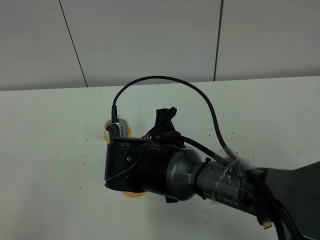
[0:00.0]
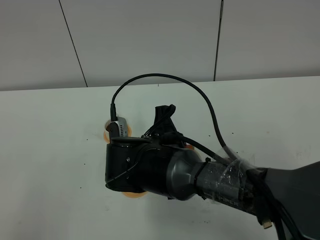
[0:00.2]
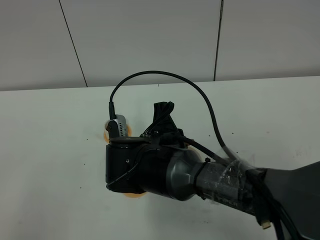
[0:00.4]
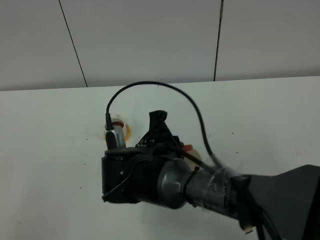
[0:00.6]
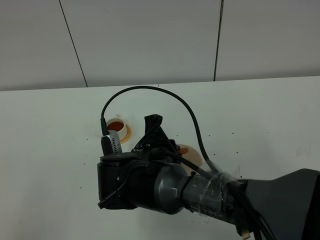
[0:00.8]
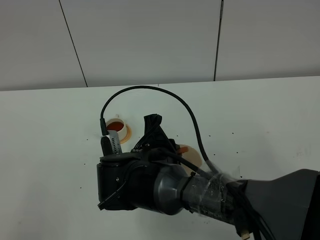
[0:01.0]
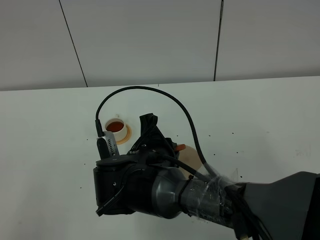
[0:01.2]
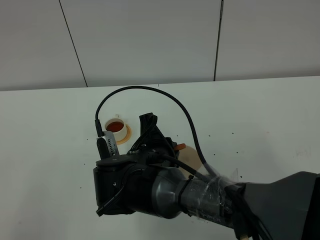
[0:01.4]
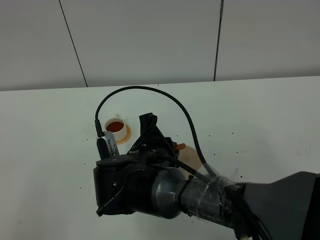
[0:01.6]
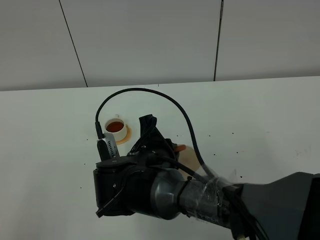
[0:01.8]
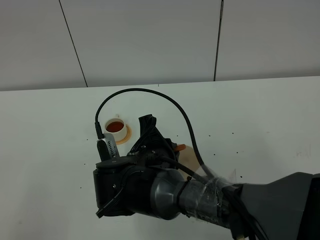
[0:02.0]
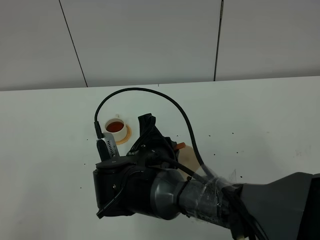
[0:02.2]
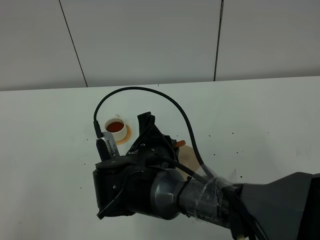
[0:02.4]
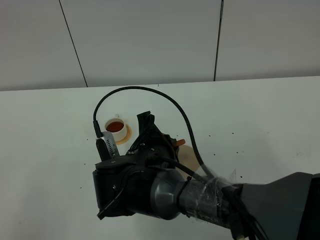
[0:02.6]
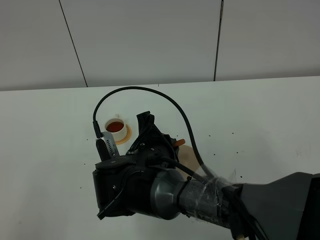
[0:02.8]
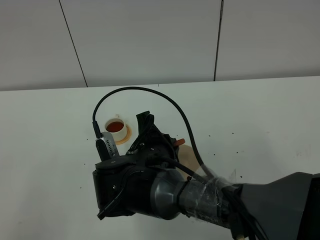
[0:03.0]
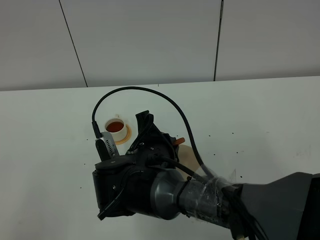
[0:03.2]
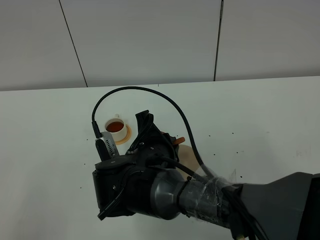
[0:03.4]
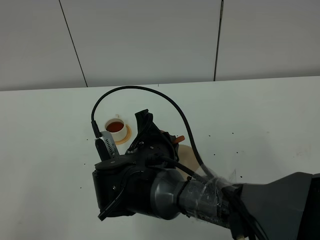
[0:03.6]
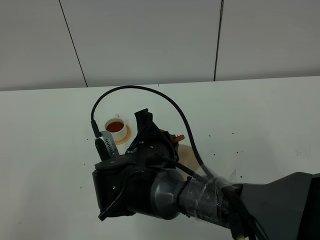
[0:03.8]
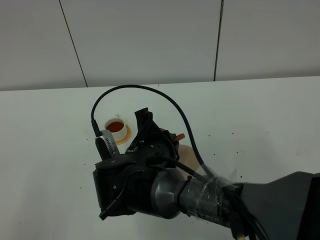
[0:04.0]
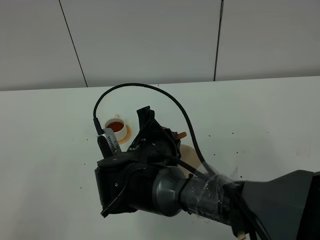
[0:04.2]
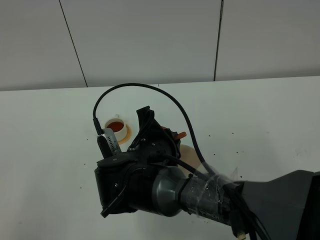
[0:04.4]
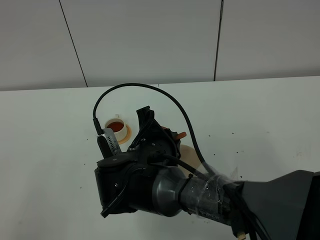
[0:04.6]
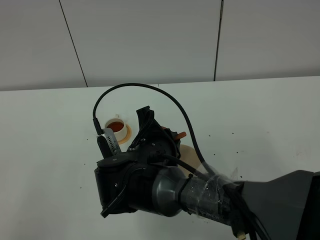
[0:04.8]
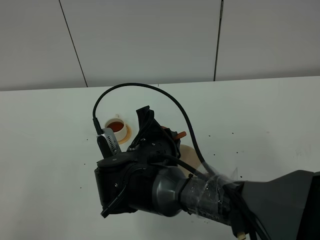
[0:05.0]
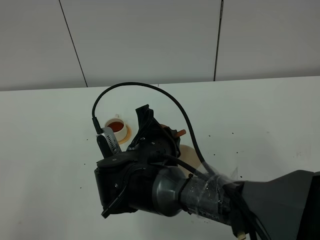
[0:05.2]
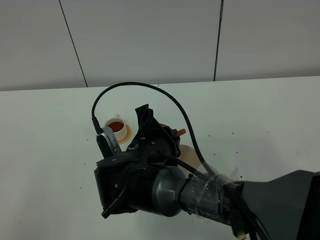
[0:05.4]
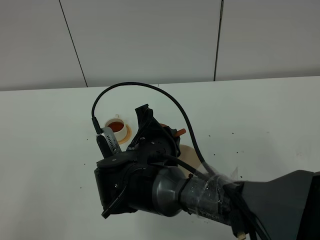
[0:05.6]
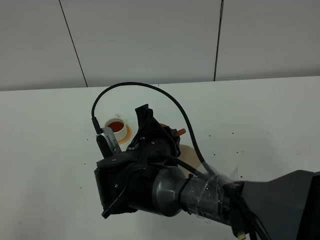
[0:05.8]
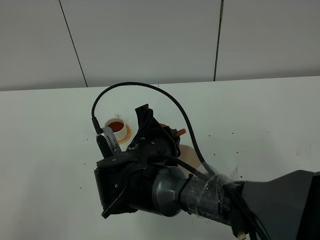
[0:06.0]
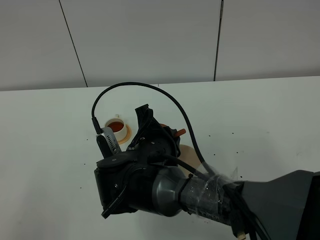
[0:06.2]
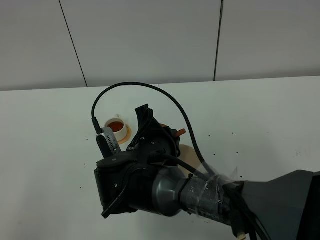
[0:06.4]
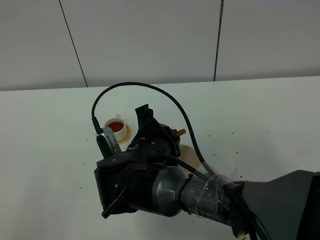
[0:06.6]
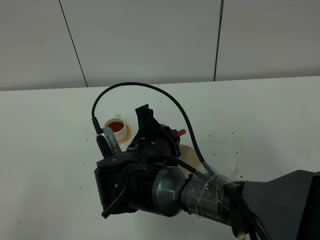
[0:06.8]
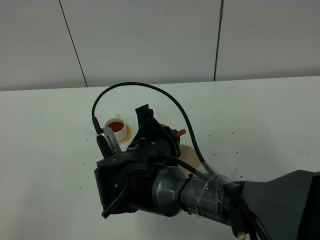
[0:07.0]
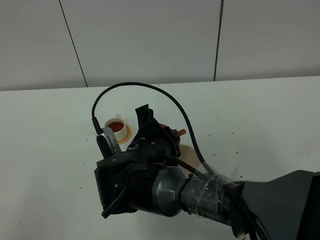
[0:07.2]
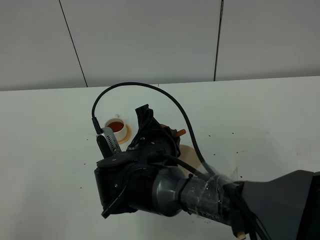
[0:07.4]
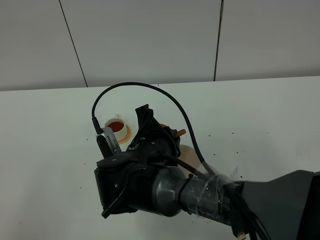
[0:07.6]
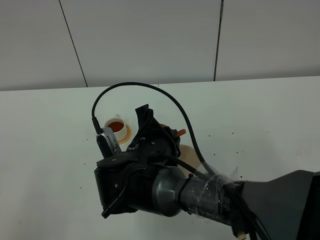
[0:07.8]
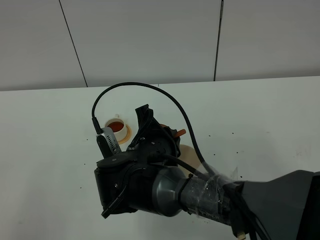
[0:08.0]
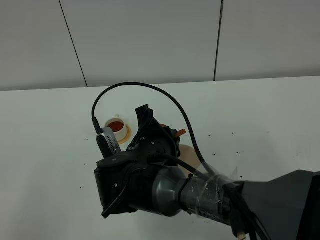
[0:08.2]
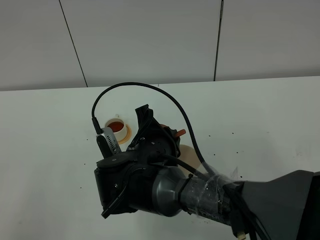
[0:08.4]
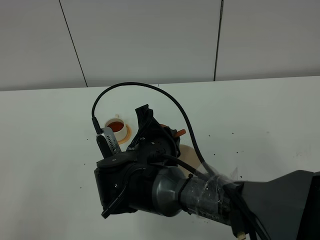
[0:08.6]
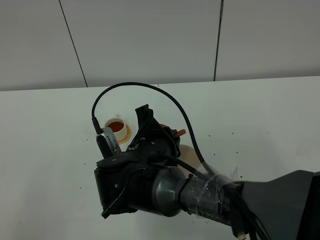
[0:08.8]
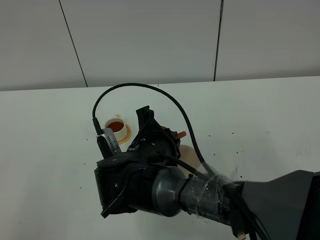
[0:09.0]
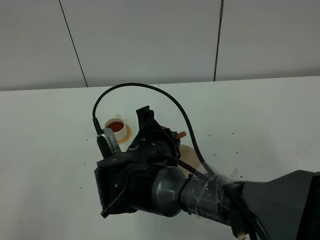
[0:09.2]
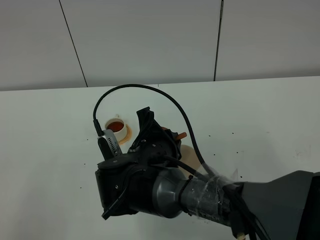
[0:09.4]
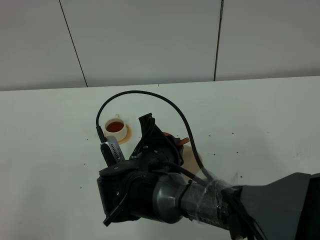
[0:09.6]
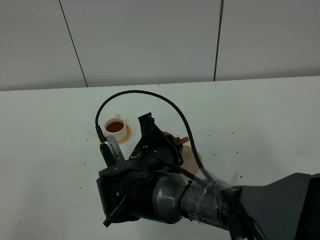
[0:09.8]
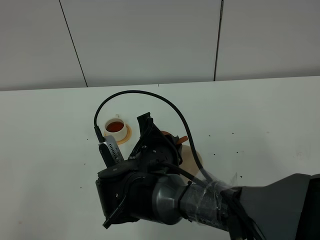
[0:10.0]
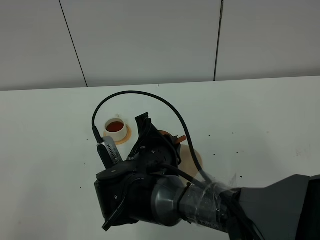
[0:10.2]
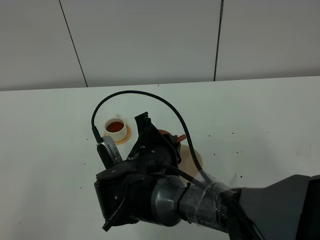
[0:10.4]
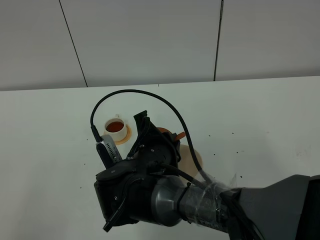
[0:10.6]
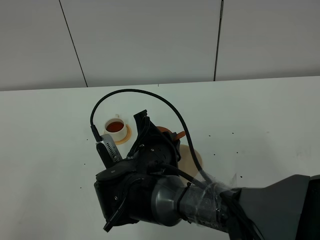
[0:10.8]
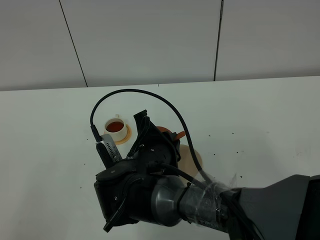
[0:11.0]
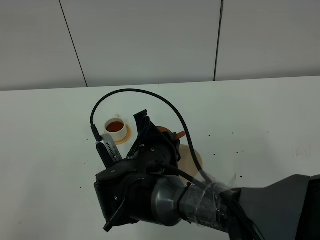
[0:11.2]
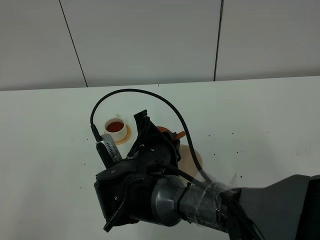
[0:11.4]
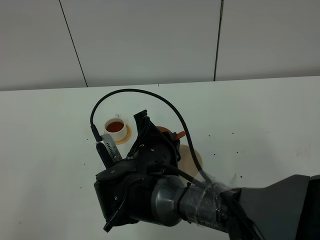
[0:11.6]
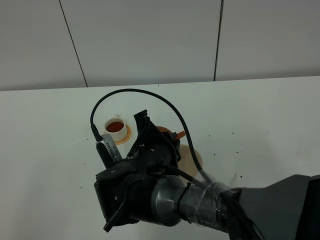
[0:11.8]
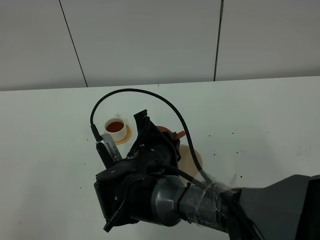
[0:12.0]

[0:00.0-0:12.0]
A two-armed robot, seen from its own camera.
Task of the whole recording: grasp the brown teapot and pour the tea into the two white teacups one by one, put the brown teapot back in its original place.
0:00.0 to 0:01.6: The grippers stay close to where they were, moving slightly.
0:01.6 to 0:03.0: The two grippers keep their place.
0:03.0 to 0:09.0: The two grippers keep their place.
0:09.0 to 0:12.0: Both grippers stay about where they are.

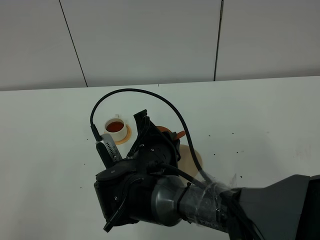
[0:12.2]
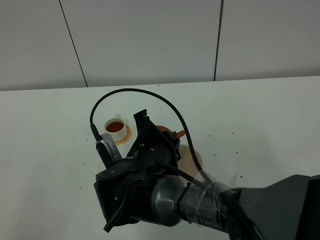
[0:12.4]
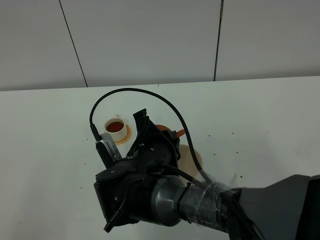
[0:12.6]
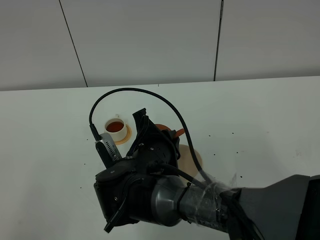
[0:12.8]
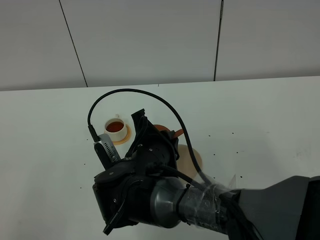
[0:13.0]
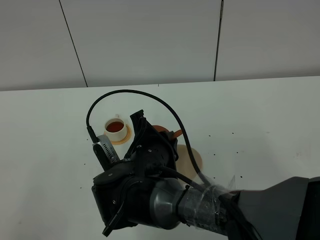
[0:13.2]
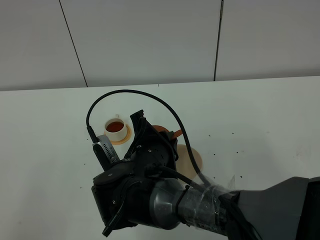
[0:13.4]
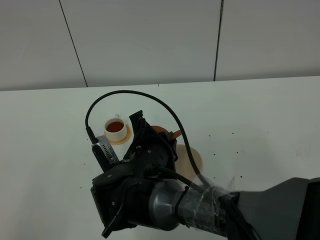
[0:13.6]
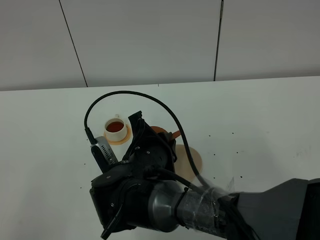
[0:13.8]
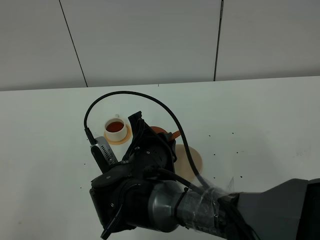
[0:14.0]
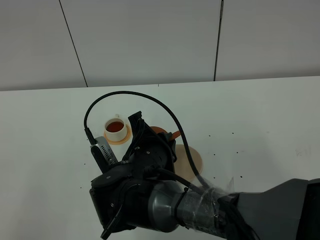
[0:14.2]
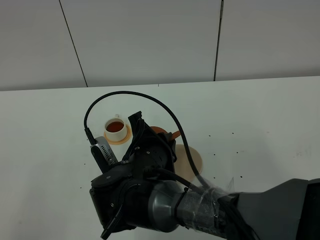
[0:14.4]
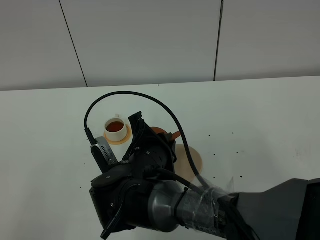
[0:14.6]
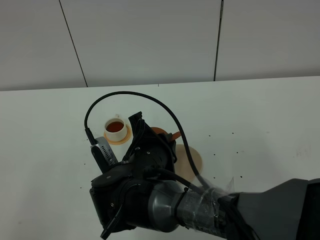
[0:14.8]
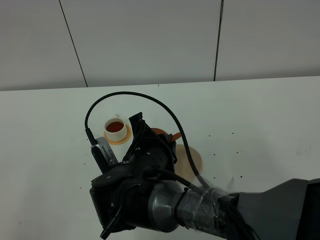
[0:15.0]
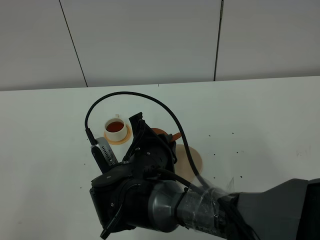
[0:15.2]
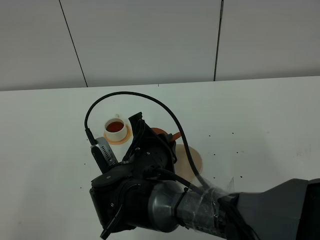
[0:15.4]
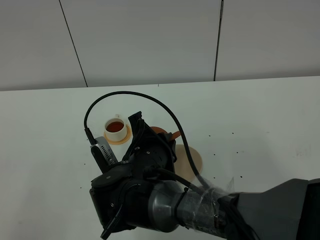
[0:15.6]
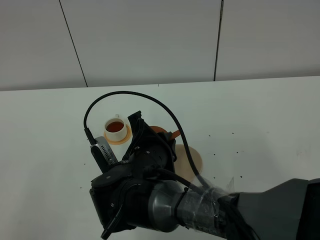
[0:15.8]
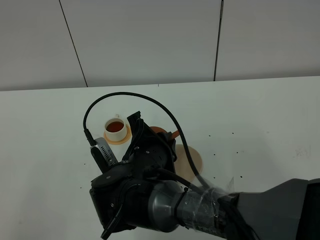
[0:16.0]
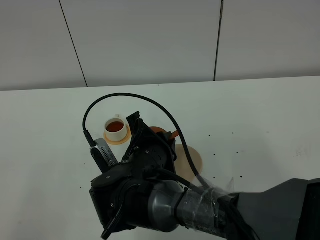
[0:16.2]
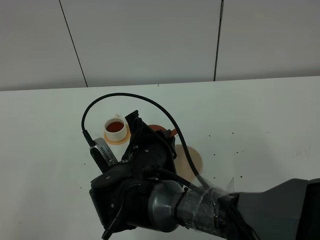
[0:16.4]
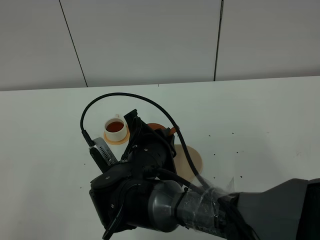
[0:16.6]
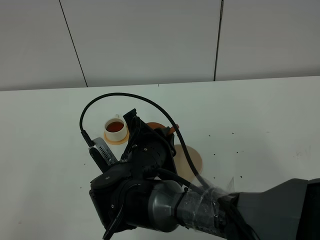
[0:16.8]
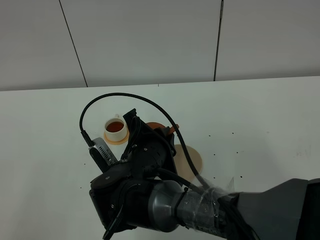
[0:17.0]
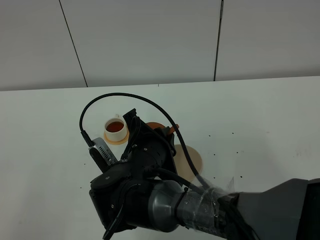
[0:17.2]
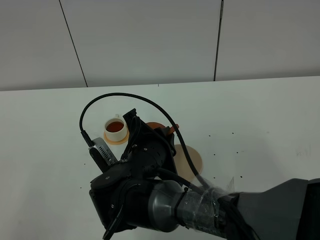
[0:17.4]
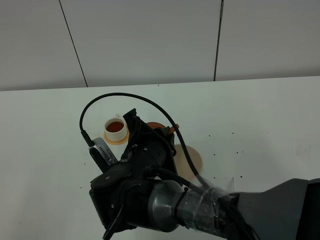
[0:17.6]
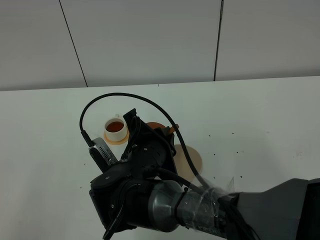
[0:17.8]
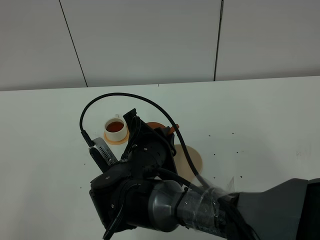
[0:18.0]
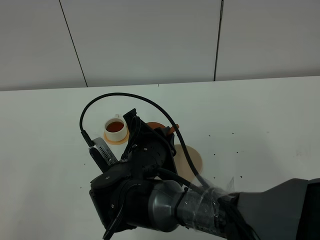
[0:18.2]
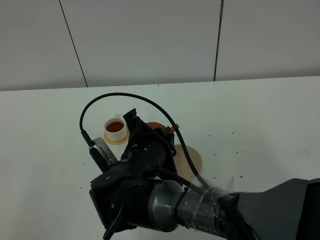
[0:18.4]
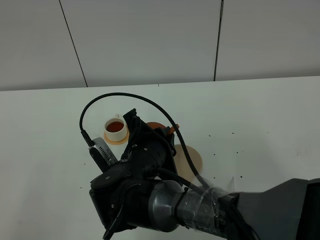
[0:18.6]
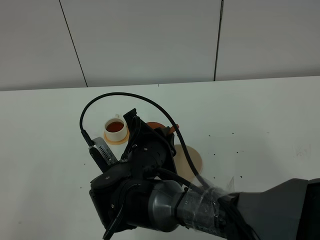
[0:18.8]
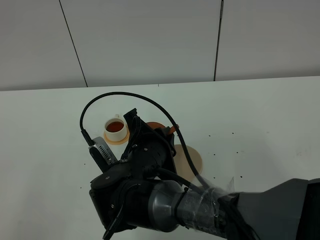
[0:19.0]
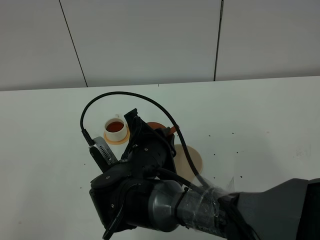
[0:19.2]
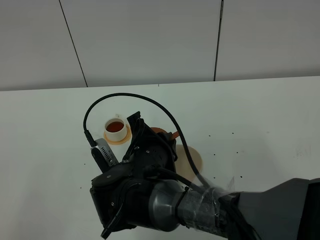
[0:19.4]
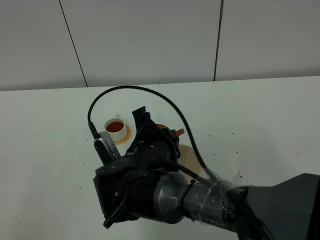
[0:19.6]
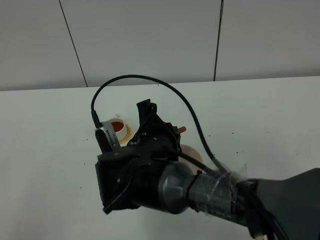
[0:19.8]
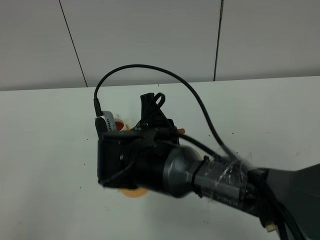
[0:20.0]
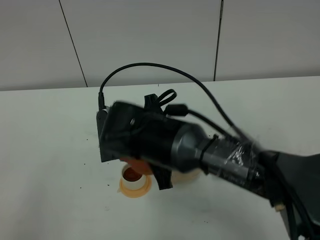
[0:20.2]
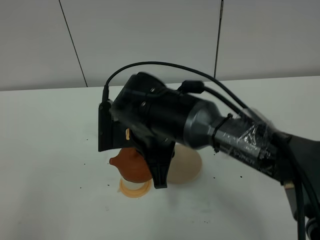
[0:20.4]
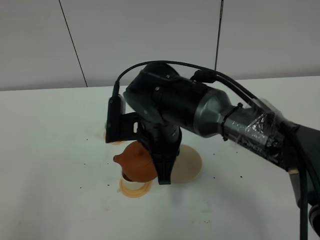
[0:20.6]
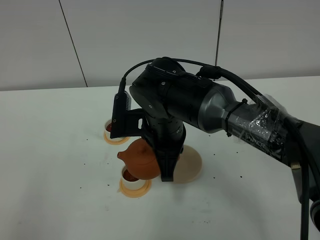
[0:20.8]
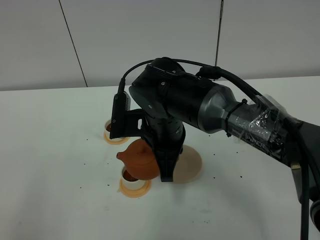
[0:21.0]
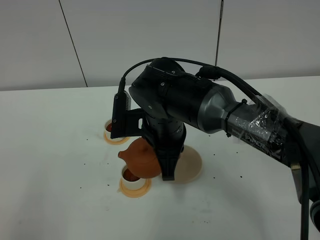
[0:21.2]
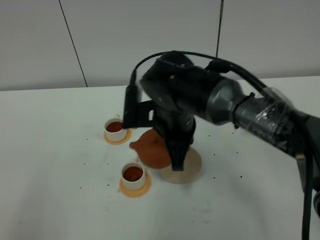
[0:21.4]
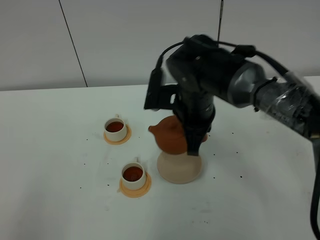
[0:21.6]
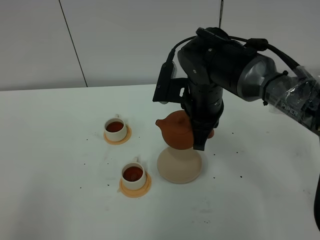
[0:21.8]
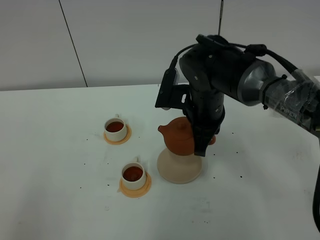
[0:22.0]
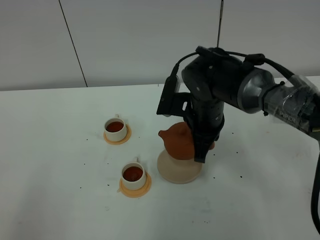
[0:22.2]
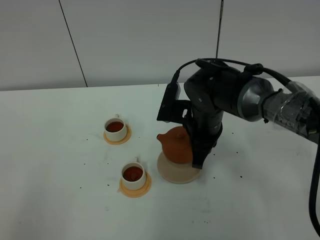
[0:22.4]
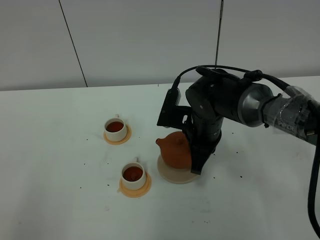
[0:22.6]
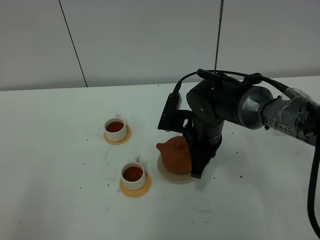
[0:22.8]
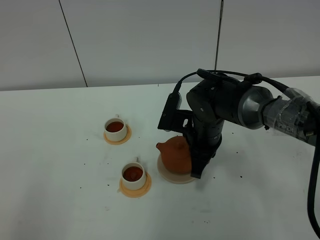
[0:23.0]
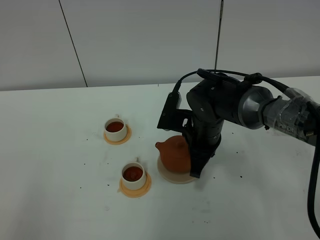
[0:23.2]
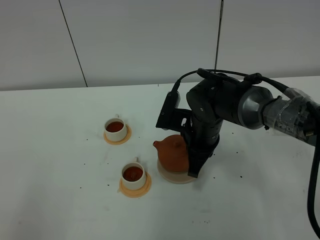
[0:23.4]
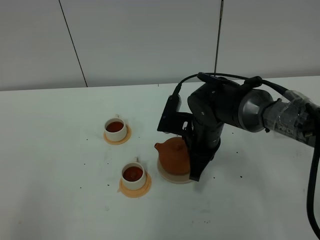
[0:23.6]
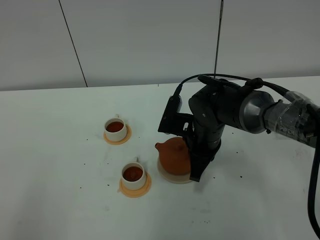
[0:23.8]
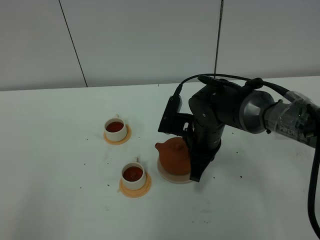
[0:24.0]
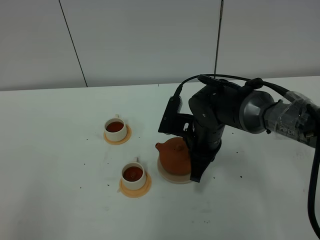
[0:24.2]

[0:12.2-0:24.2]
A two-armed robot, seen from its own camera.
Task of the whole recording: grasp the brown teapot and pour the tea into the two white teacups one by one, put the brown teapot back in its original place.
Step, 0:12.2 to 0:20.6: Pour tea into the teacup with the right gripper.
0:12.2 to 0:15.2: The two grippers keep their place.
0:15.2 to 0:16.6: The grippers make only small movements.
0:16.6 to 0:18.2: The two grippers keep their place.
0:18.2 to 0:19.8: The grippers stay close to where they were, moving slightly.
0:19.8 to 0:21.2: The right gripper moves some 5 cm.
0:21.2 to 0:22.6: The right gripper heads to the right and downward, covering some 10 cm.
0:22.6 to 0:24.2: There are only small adjustments of the grippers.
